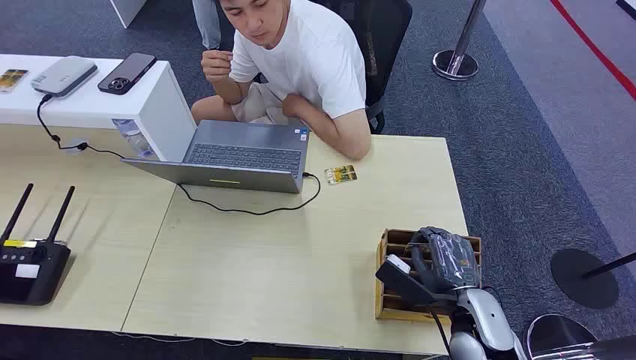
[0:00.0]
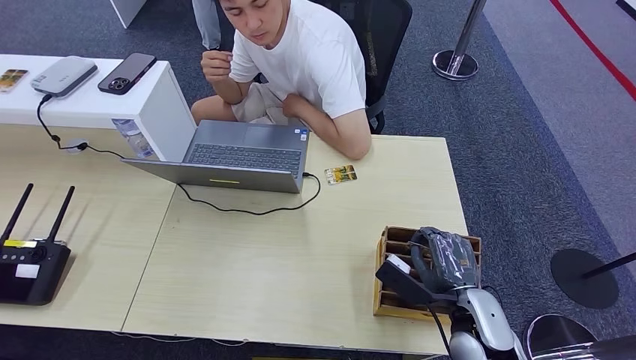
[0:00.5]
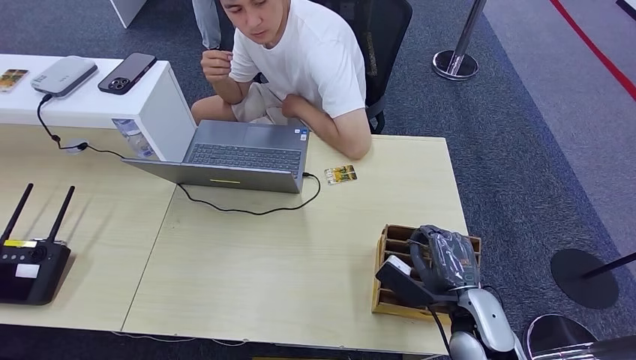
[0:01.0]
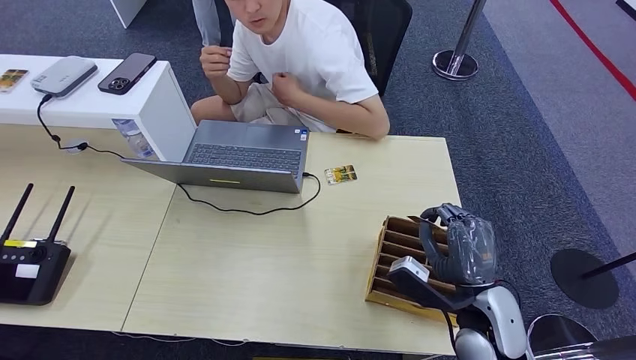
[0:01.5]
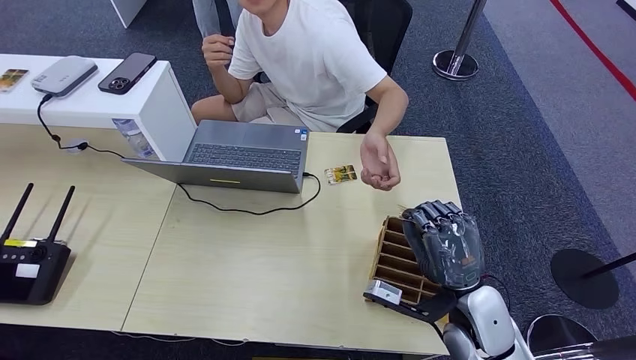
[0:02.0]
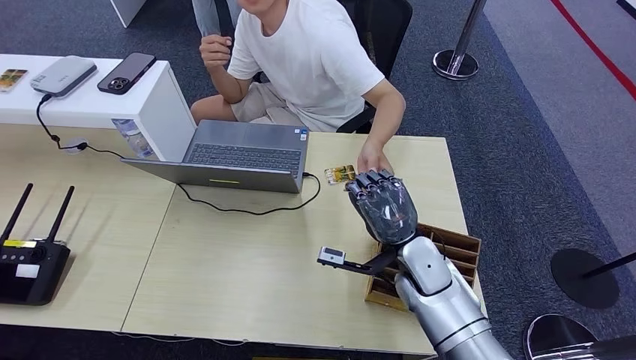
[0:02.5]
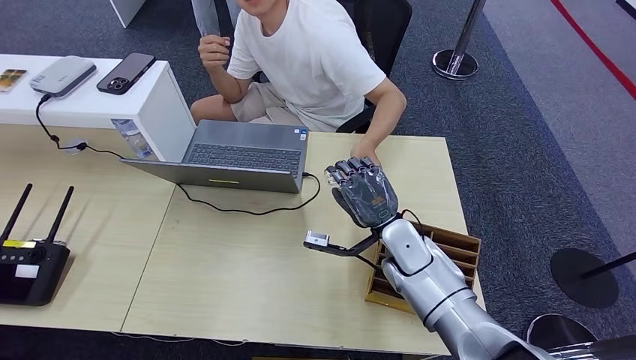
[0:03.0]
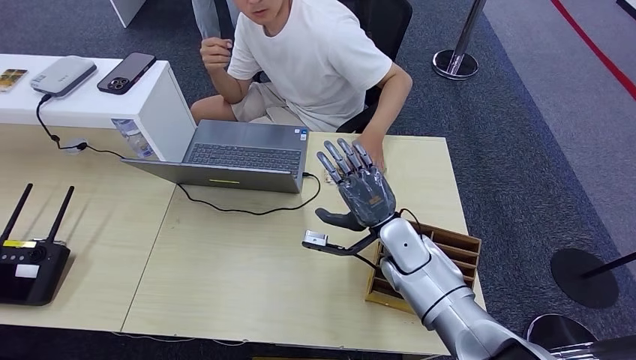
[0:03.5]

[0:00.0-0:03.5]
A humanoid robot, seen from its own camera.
Step, 0:00.0 to 0:02.0: Pick up the key card from the card box.
Step, 0:02.5 to 0:03.5: Hand the key card to the target.
0:02.0 to 0:03.5: The right hand is displaced forward and to the left by roughly 15 cm.
